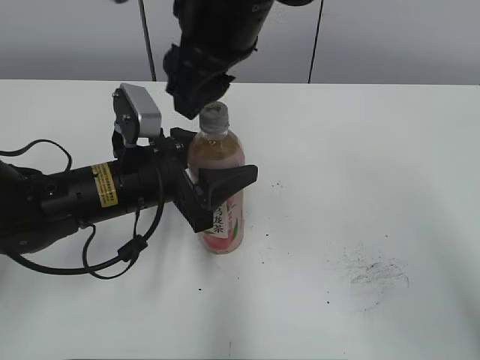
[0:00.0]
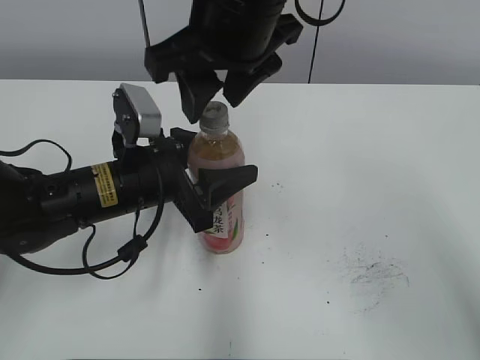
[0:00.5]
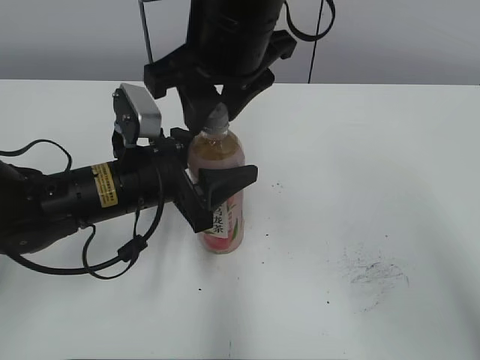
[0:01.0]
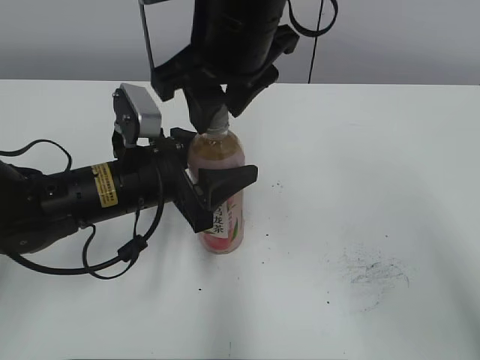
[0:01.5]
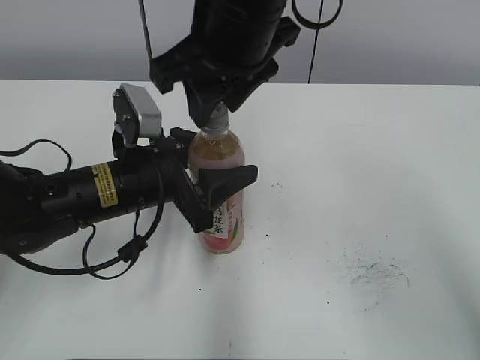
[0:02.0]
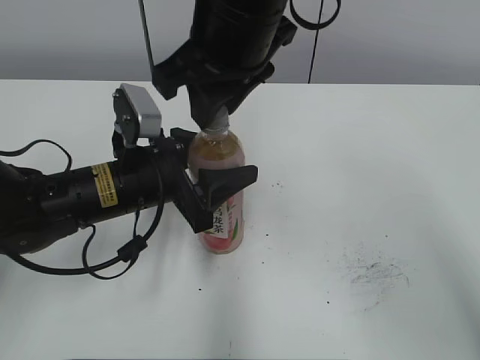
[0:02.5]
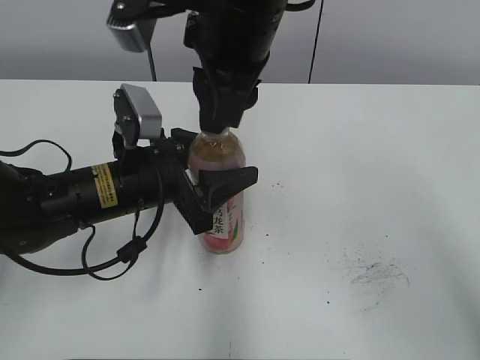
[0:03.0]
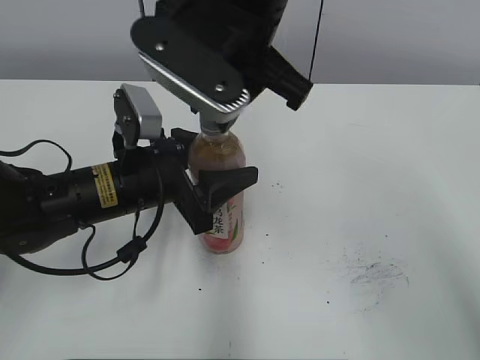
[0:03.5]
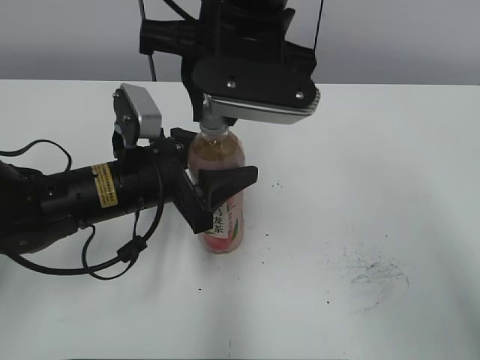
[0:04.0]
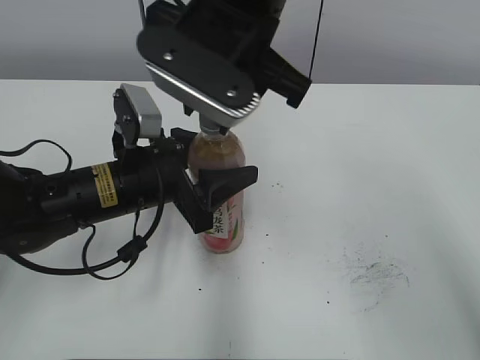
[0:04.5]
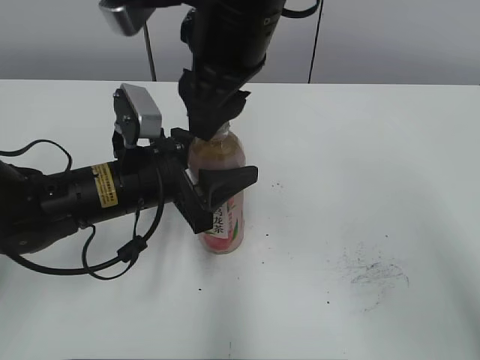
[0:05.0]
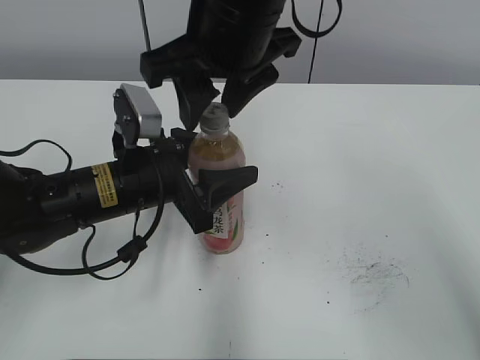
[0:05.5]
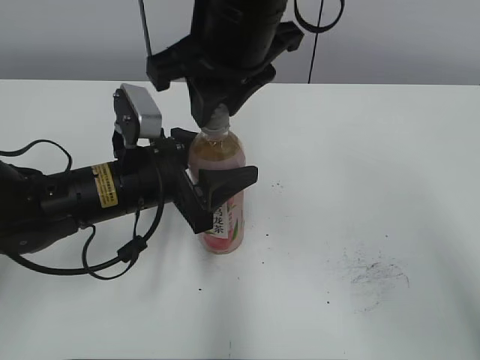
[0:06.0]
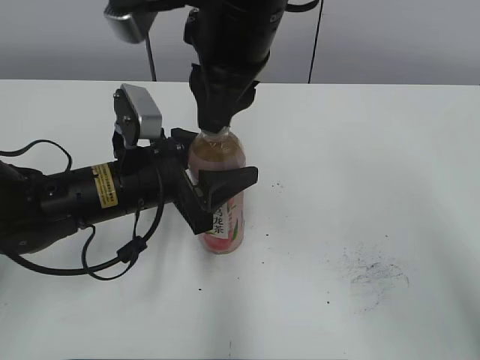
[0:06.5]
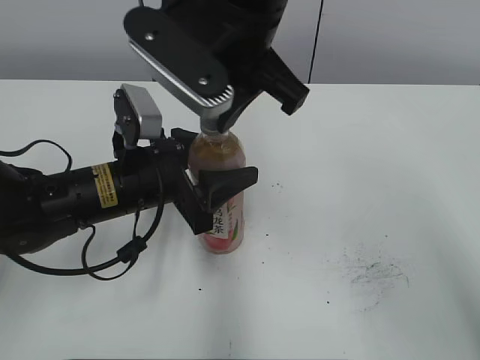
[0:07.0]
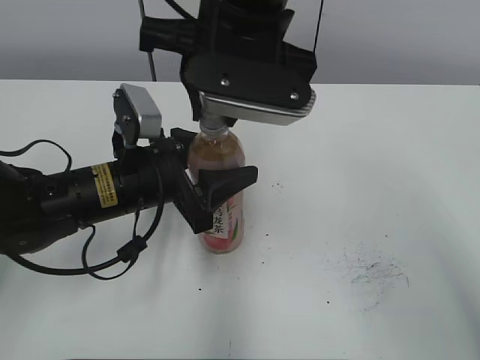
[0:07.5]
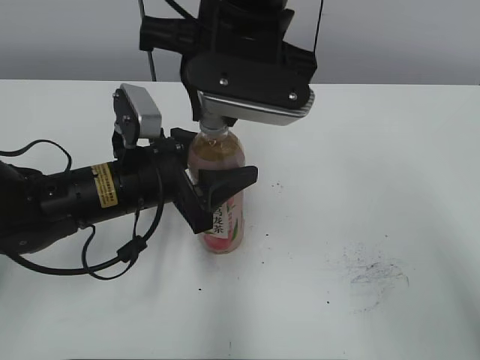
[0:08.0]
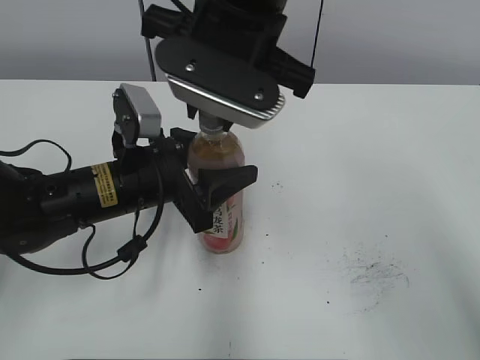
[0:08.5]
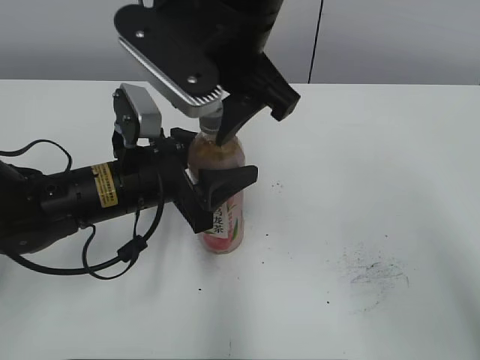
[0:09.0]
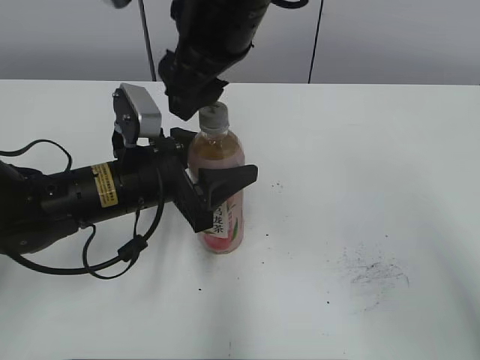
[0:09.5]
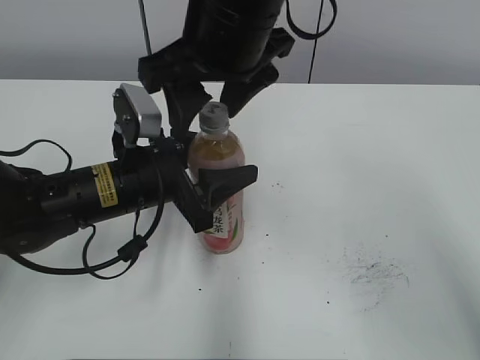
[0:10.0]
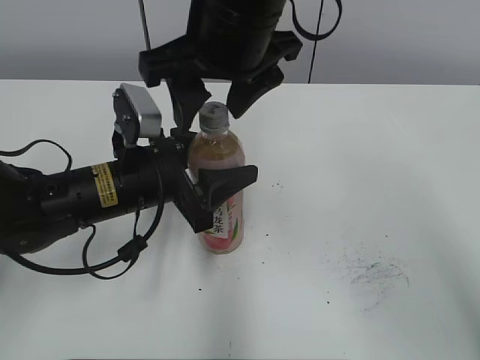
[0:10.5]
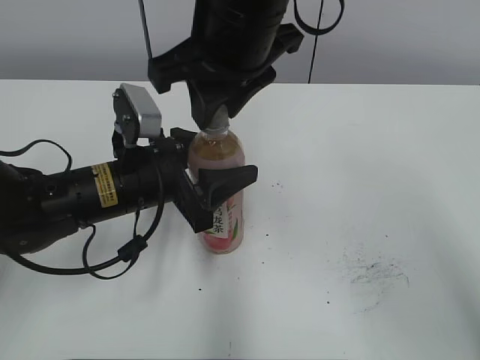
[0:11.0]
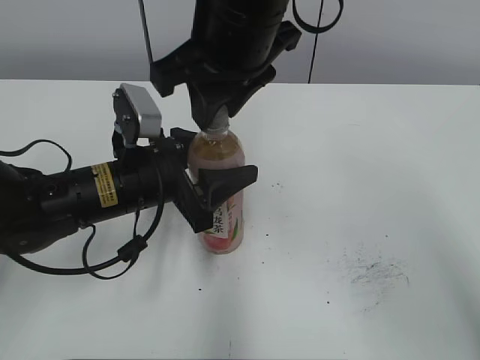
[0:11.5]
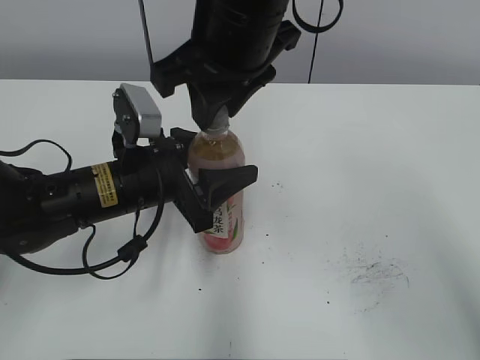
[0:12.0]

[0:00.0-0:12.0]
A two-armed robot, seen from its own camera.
0:04.0 to 0:06.0: The right gripper opens, then closes once more.
0:08.0 to 0:10.0: The right gripper opens its fingers.
0:10.0 to 0:12.0: The right gripper closes its fingers.

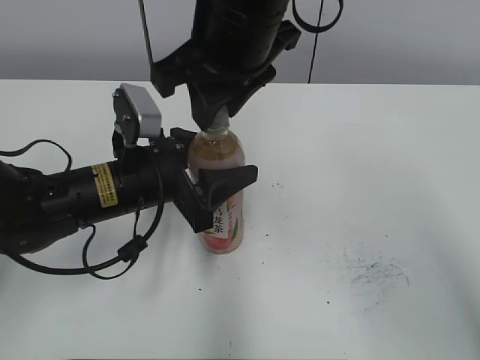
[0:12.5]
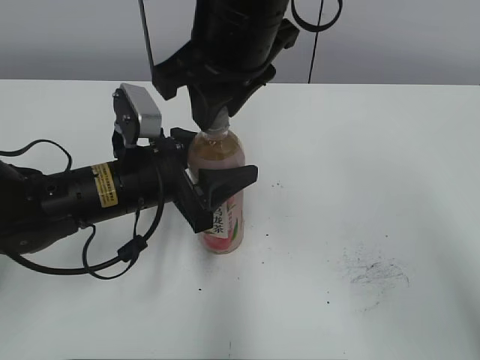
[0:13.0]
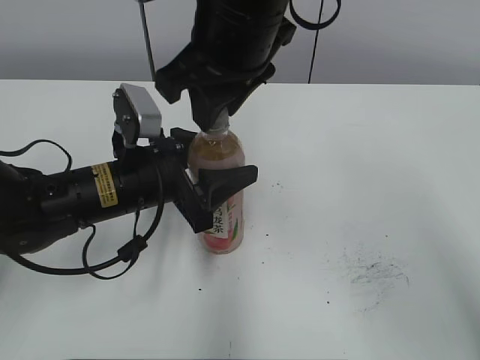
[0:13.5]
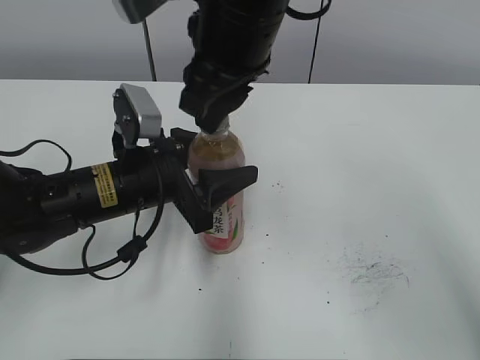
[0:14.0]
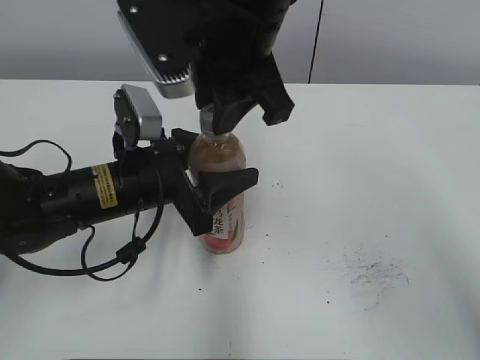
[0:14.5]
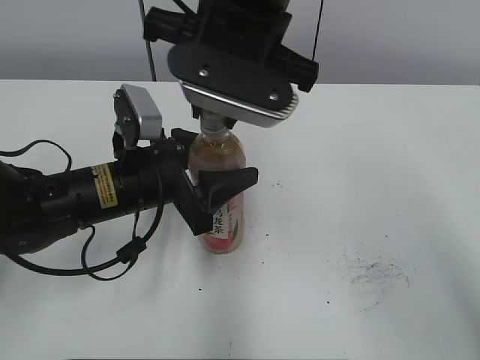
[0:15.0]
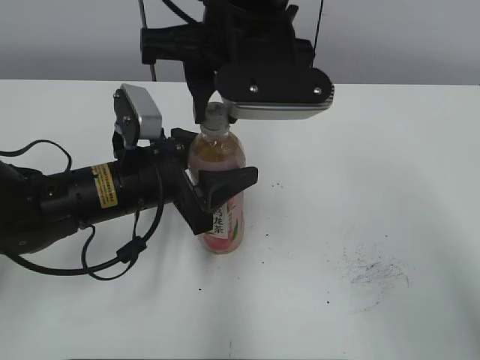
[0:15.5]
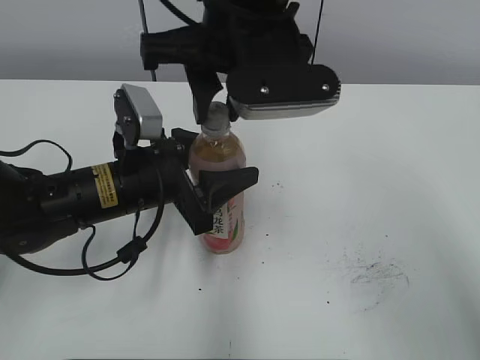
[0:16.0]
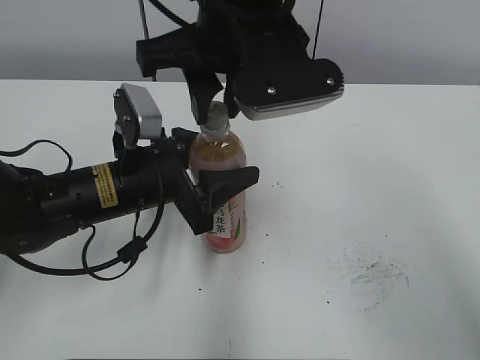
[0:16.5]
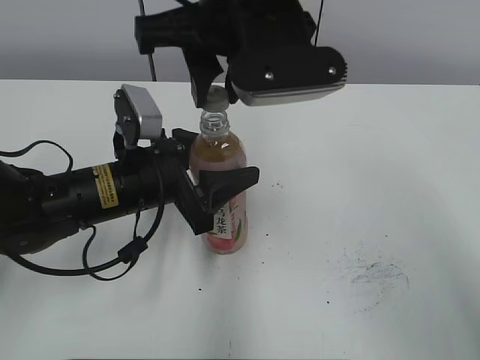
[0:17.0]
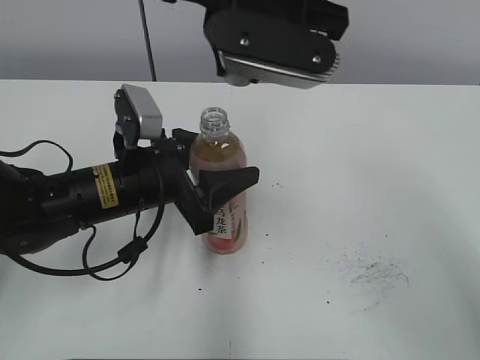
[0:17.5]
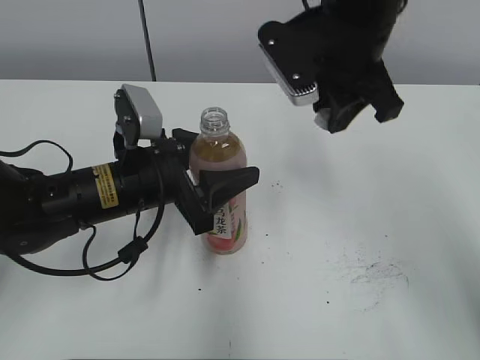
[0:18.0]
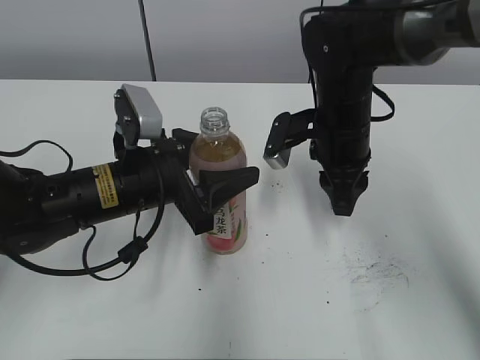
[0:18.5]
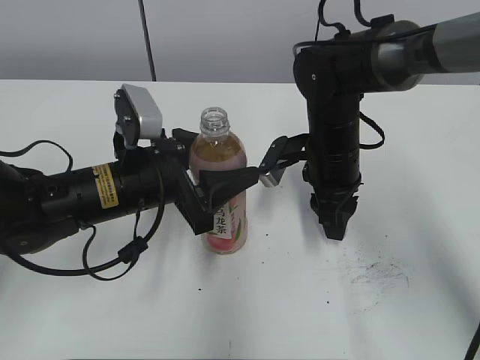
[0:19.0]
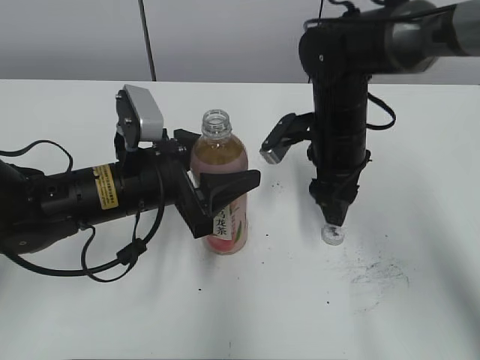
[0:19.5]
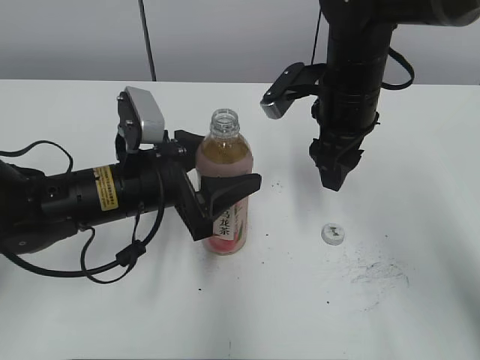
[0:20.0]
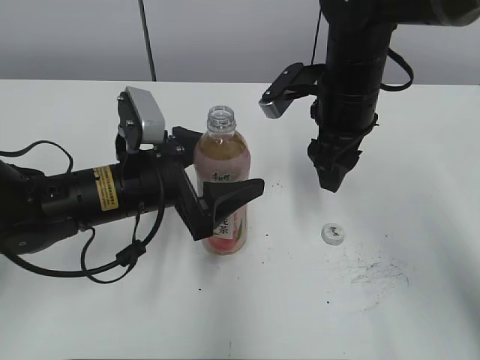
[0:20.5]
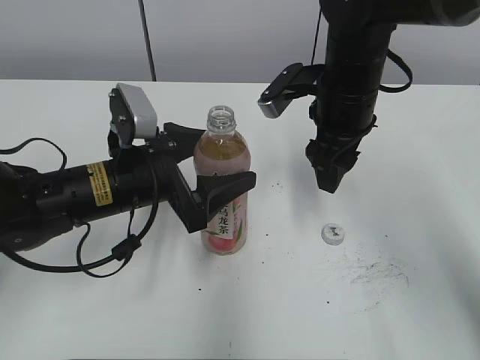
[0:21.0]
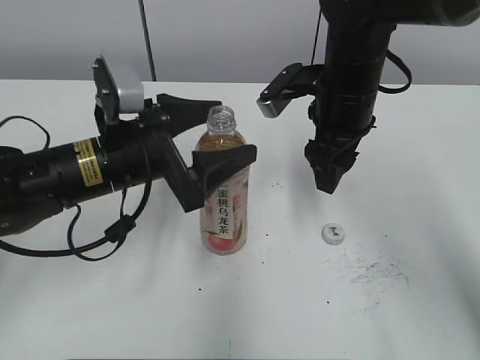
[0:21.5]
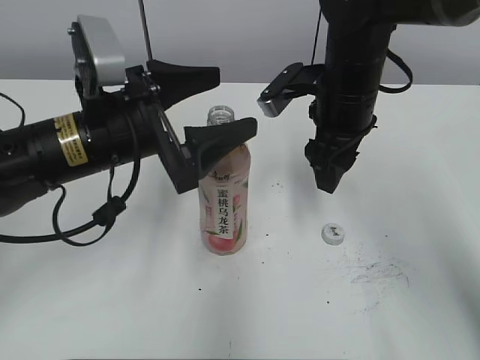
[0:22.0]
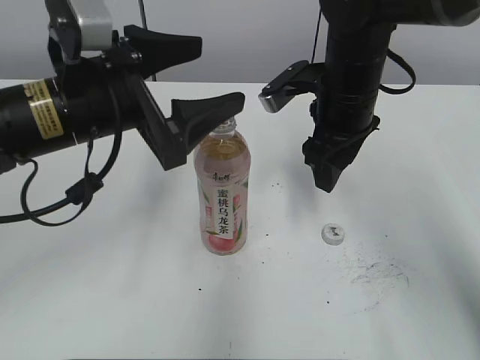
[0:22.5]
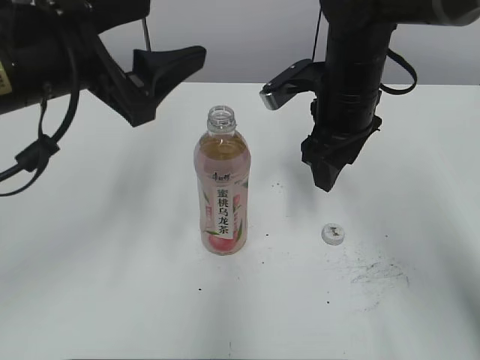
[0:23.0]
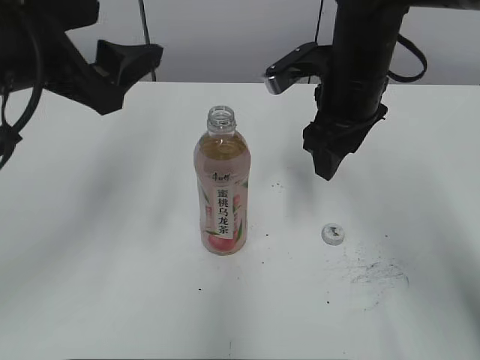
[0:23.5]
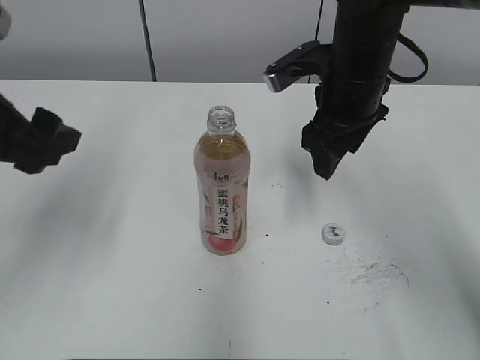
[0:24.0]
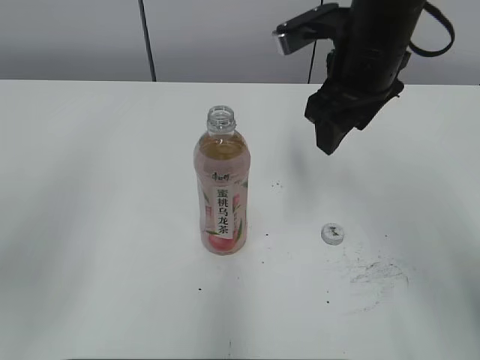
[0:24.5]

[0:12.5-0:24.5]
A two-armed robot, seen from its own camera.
Step, 0:12.5 to 0:17.0: Secure the Peach Oolong Tea with the left hand.
Step, 0:17.5 to 0:19.0: Place the bottle cap on the right.
Step, 0:19.5 to 0:21.0: Place the Peach Oolong Tea with the left hand.
0:16.5 to 0:18.5: The right gripper is displaced downward, to the right and forward by approximately 20 cm.
0:18.5 to 0:20.5: The right gripper opens up. Meanwhile the left gripper opens its fingers.
0:20.5 to 0:22.5: The left gripper moves upward, about 10 cm.
0:22.5 to 0:24.5: The left gripper heads backward, to the left and upward, covering some 20 cm, and closes up. The right gripper moves upward, some 5 cm.

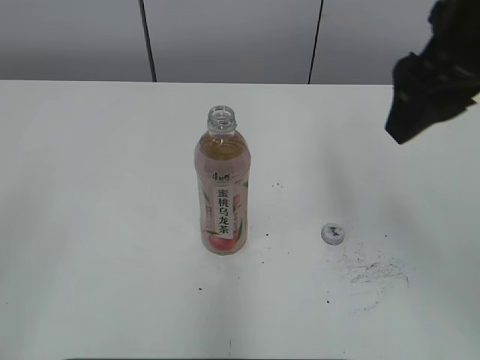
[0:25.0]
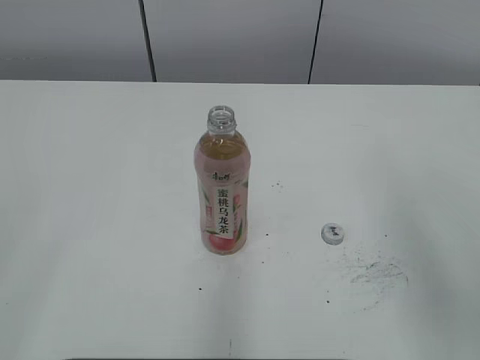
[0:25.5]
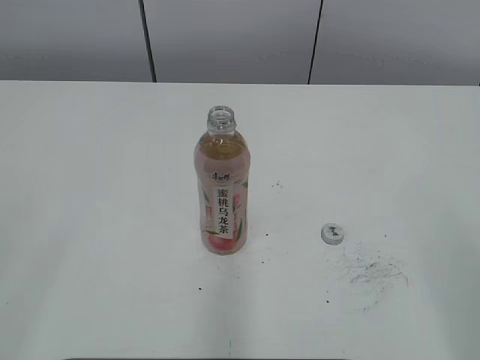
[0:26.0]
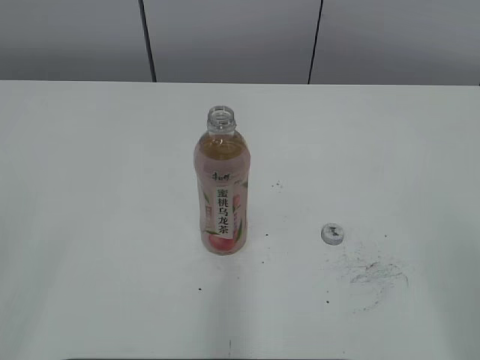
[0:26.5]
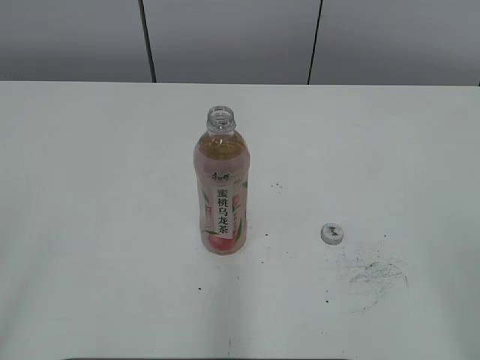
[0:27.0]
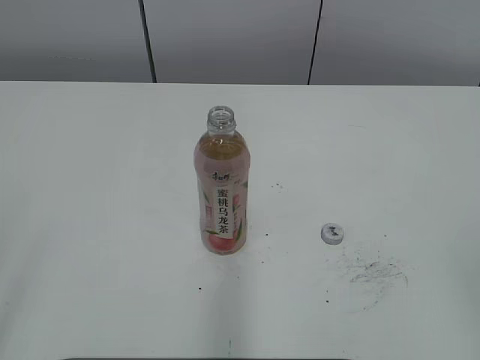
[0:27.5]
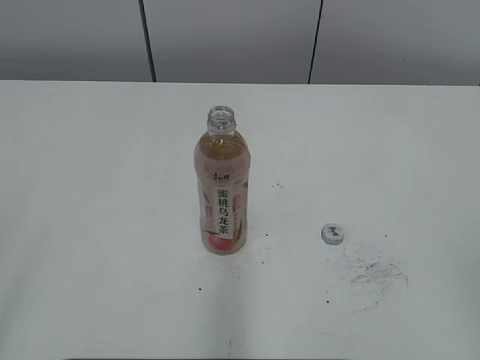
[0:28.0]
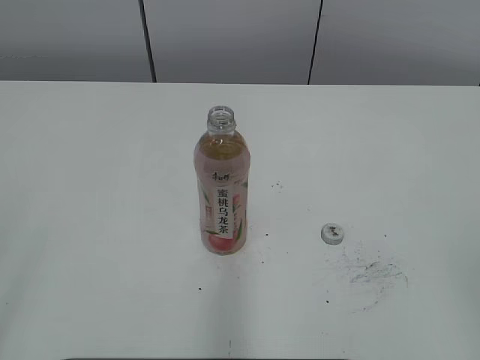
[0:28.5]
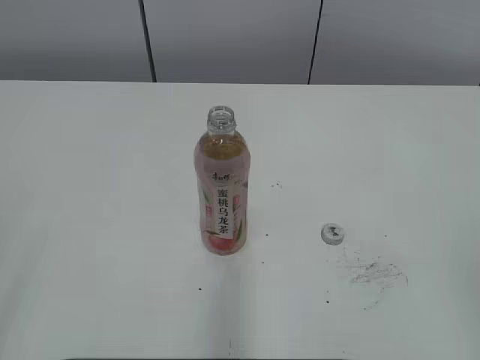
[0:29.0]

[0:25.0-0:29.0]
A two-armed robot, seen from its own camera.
0:25.0 to 0:27.0: The right gripper goes about 30 cm backward and to the right.
